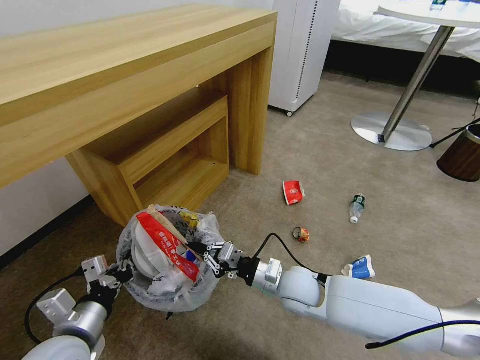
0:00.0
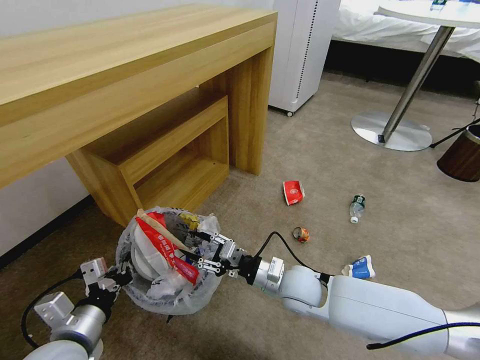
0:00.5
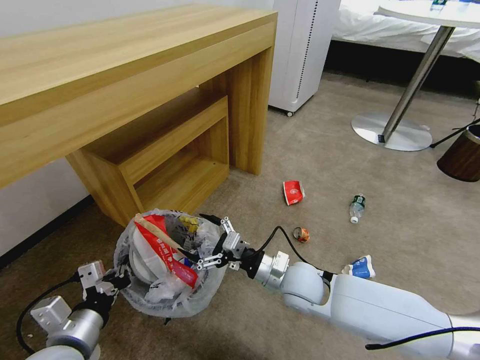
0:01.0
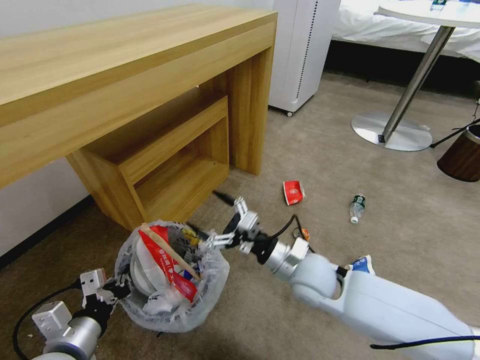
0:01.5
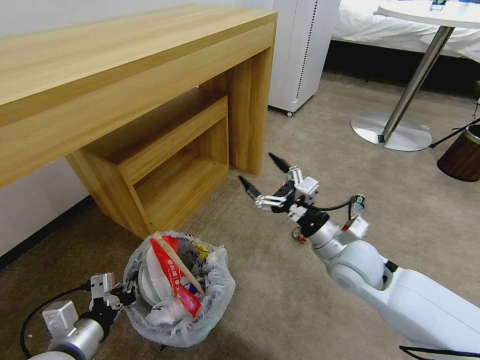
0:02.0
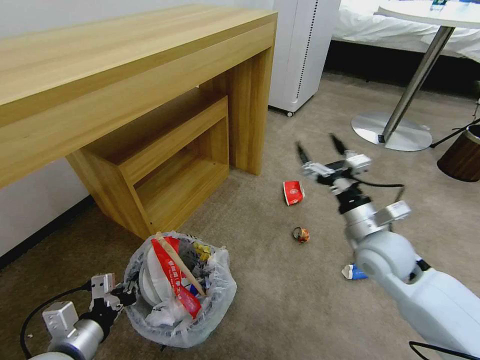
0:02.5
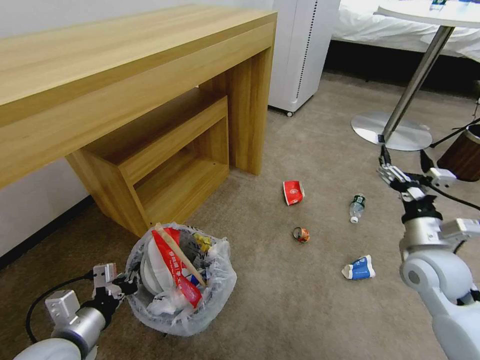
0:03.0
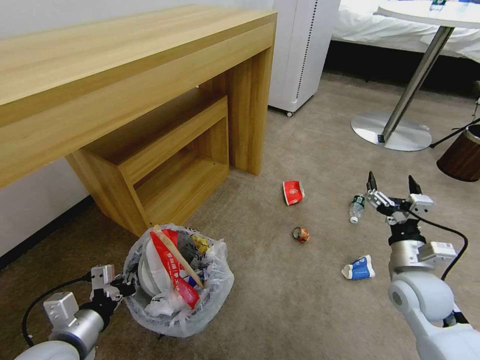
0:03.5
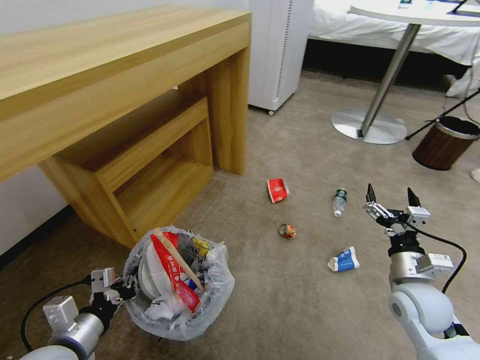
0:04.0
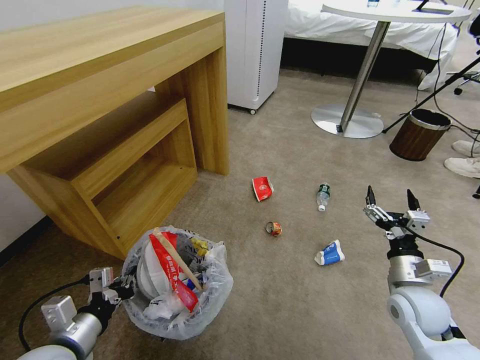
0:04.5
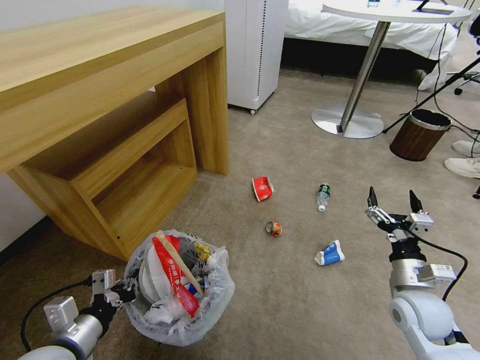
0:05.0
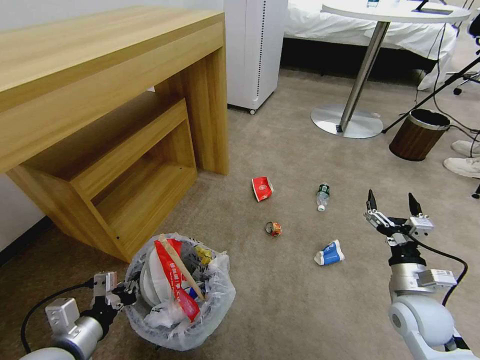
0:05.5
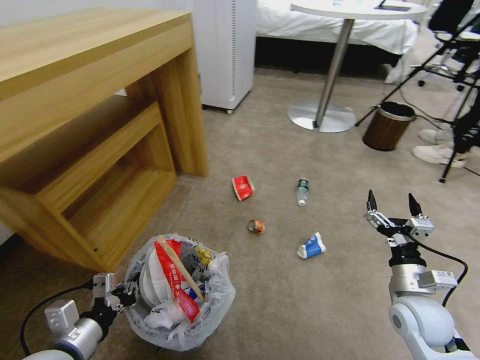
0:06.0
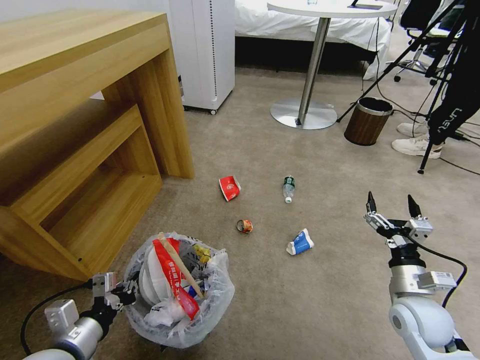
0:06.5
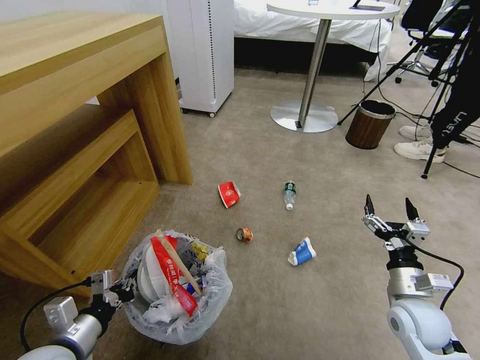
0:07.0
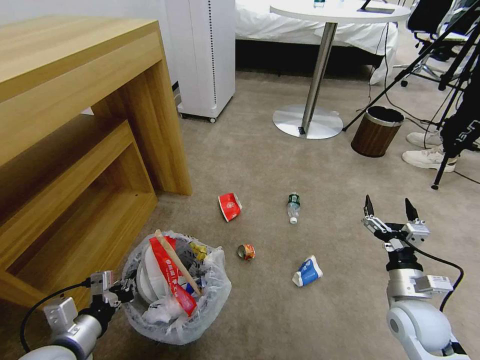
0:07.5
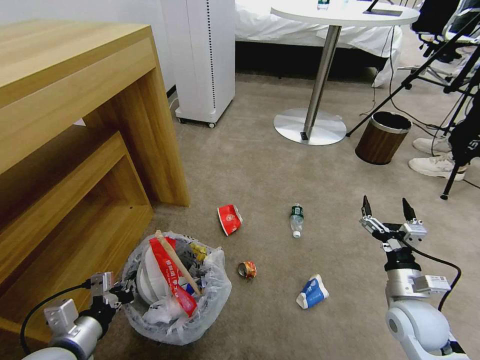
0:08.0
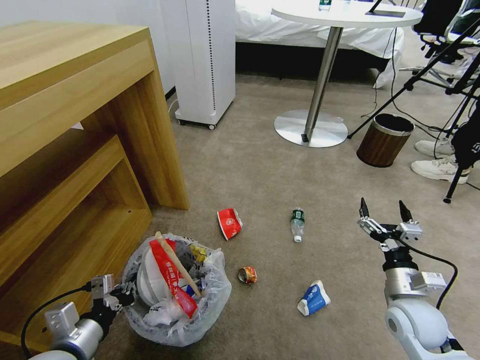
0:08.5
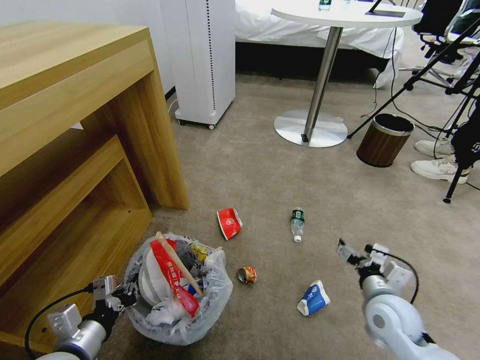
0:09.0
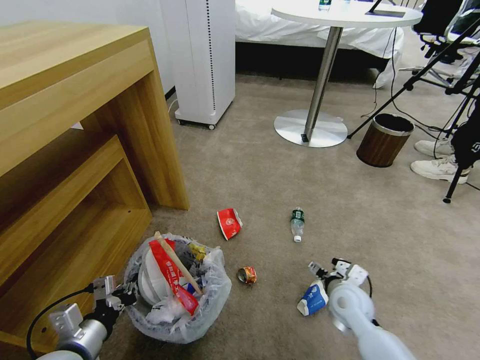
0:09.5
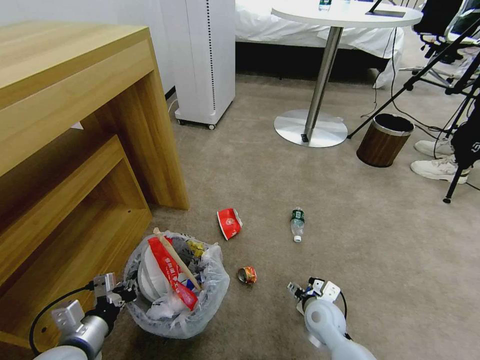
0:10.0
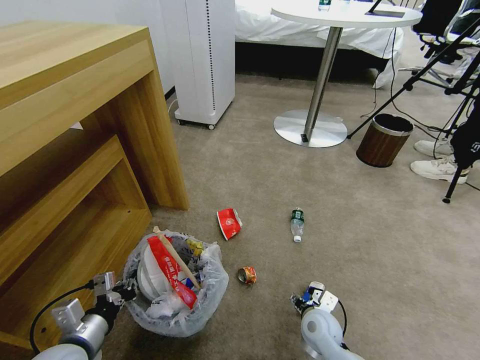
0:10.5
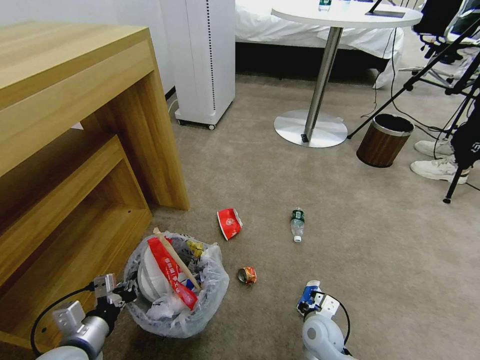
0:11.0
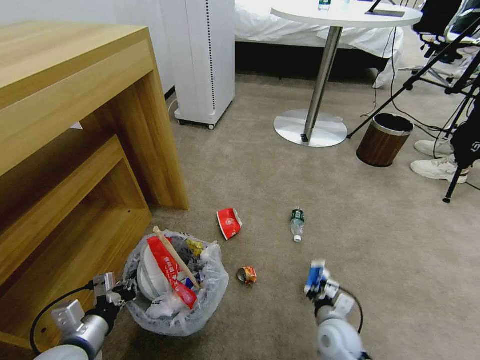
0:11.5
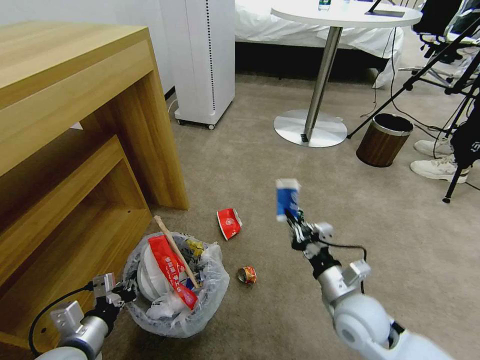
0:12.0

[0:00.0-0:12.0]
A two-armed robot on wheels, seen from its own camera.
Task of the whole recording: Pick up the trash bin and place the garbage on the floor into it.
0:00.0 to 0:02.0: The right gripper heads upward and to the right, covering about 15 cm, and opens up.
0:02.0 to 0:04.0: The right gripper moves to the right, downward and backward, some 15 cm.
0:08.0 to 0:10.0: The right gripper is displaced to the left and downward by some 20 cm.
0:10.0 to 0:12.0: The right gripper travels upward by about 10 cm, and closes its fingers.

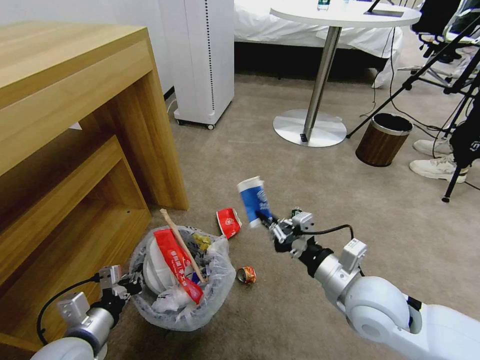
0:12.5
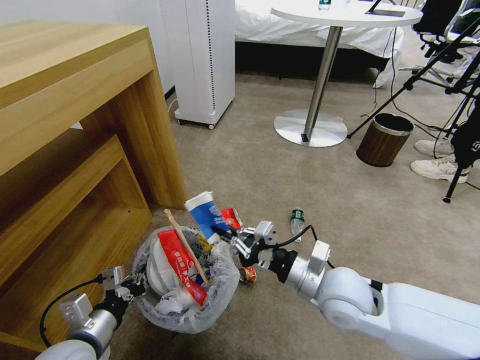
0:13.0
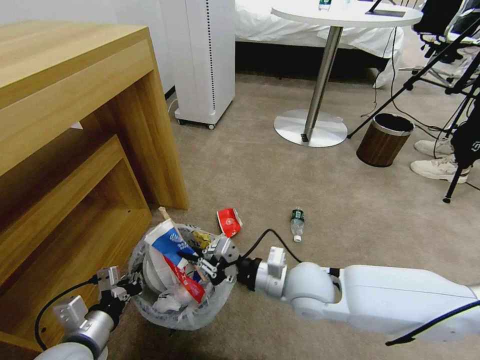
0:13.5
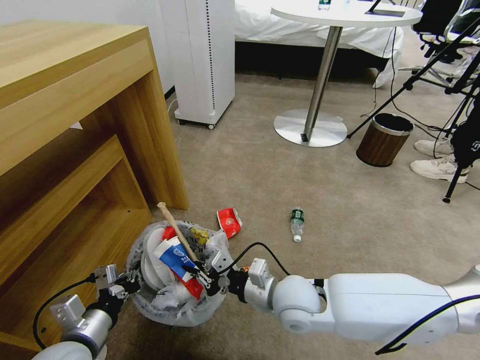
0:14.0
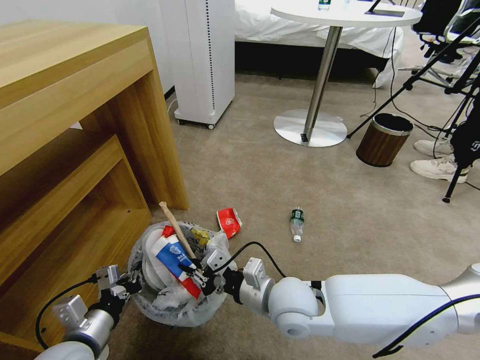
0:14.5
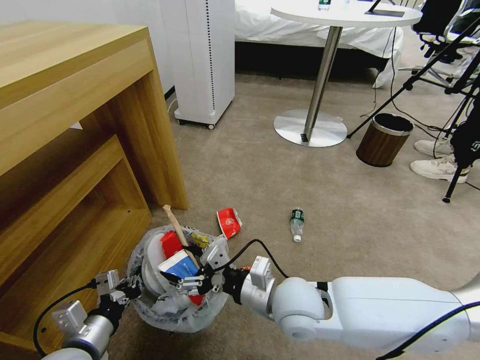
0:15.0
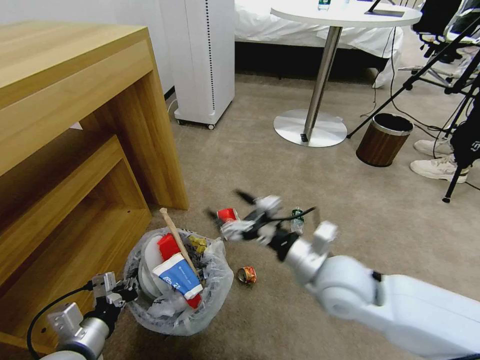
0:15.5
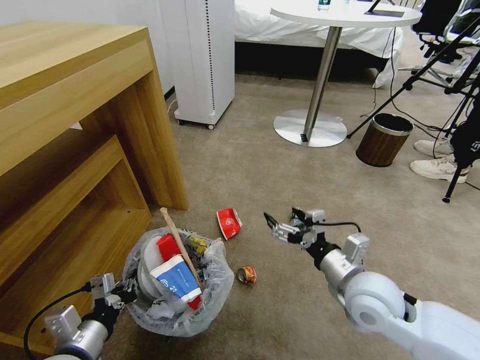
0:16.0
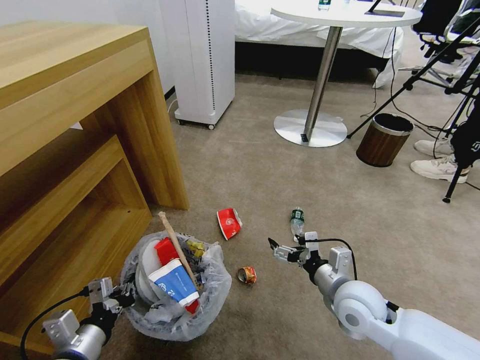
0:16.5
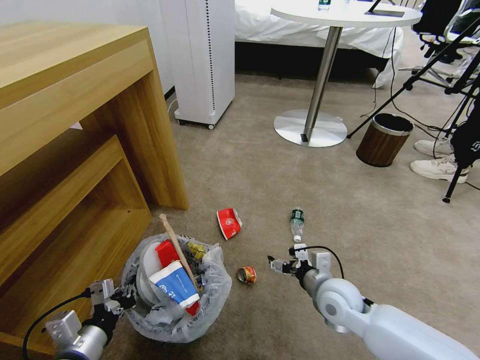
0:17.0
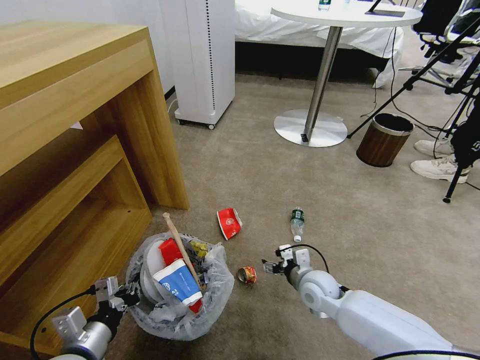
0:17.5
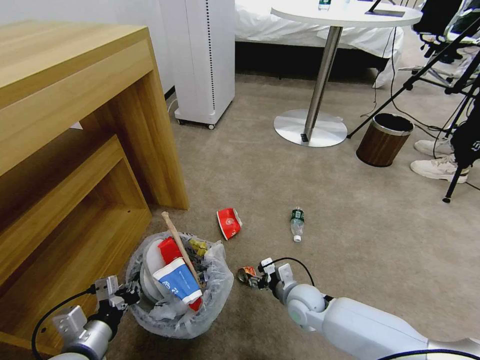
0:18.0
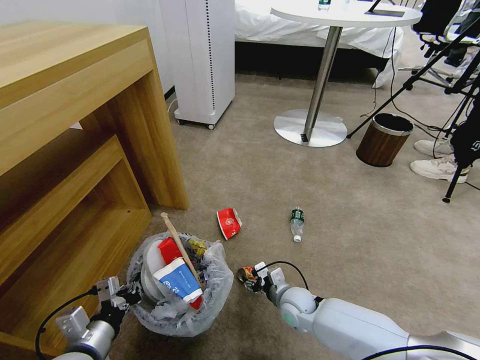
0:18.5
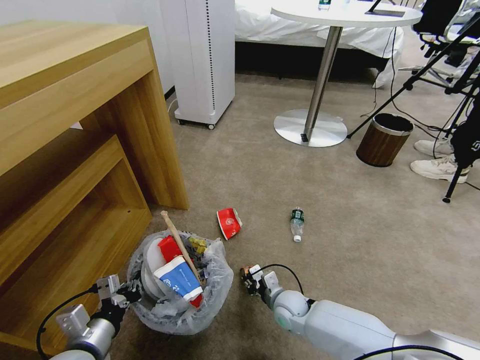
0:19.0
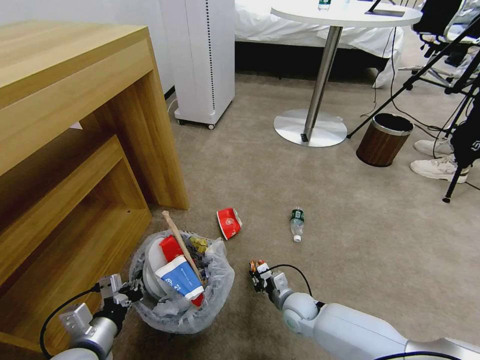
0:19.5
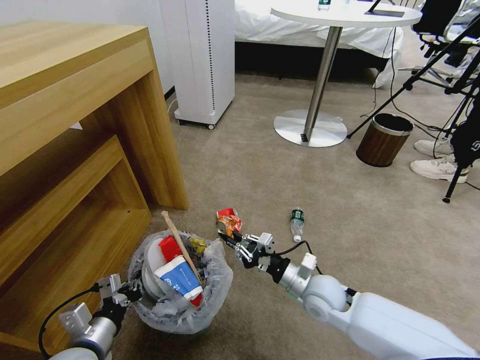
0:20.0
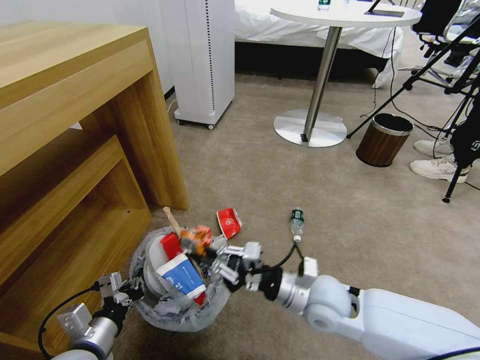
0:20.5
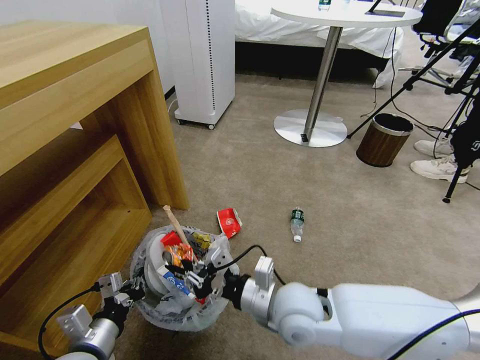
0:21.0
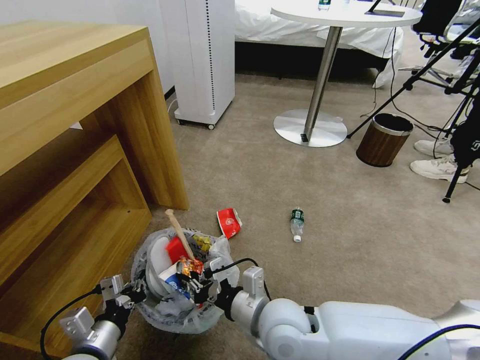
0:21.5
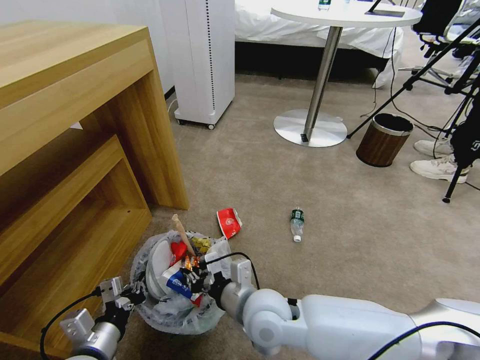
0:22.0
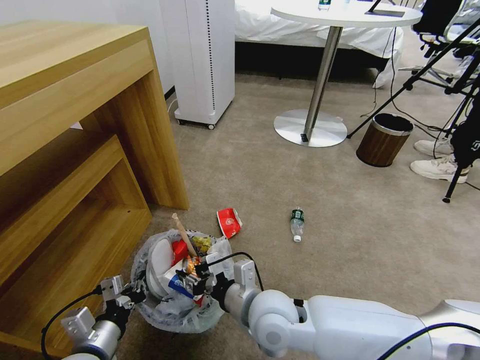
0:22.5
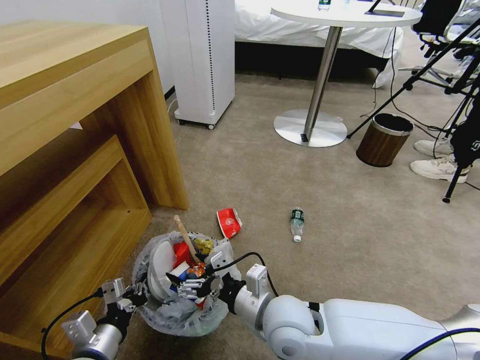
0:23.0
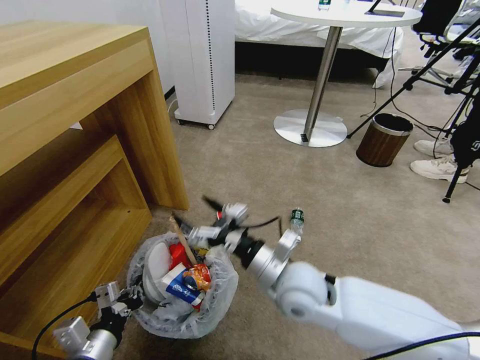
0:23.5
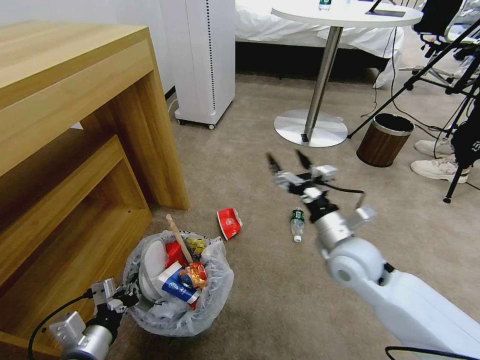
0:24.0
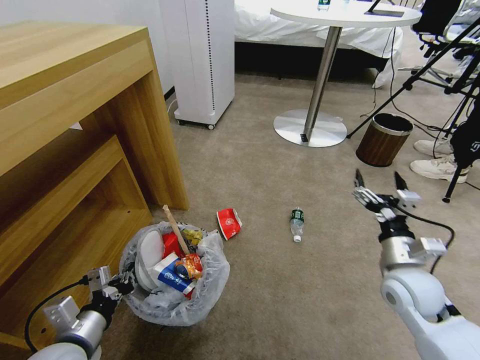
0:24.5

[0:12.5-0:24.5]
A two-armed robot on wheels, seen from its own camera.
Task of the whole recording: Pick up the trash bin and place the garbage on the floor into it.
0:12.5 to 0:14.5: The right gripper is displaced to the left and downward by roughly 15 cm.
0:14.5 to 0:16.5: The right gripper shifts approximately 15 cm to the right, and opens its fingers.
0:16.5 to 0:18.5: The right gripper moves downward and to the left, some 20 cm.
0:18.5 to 0:20.5: The right gripper travels upward by about 20 cm, and closes up.
0:20.5 to 0:22.5: The right gripper heads to the left, covering roughly 10 cm.
0:22.5 to 0:24.5: The right gripper shifts about 30 cm to the right, and opens up.

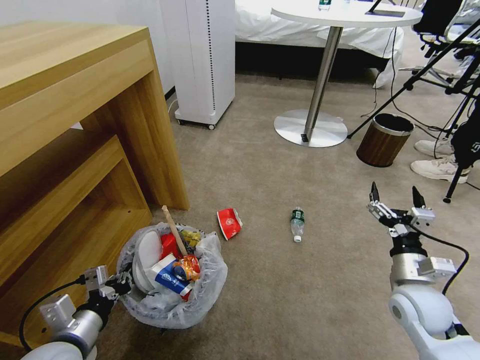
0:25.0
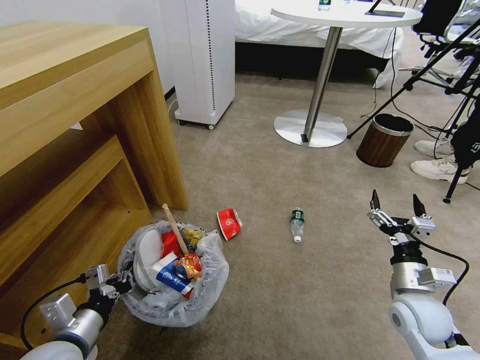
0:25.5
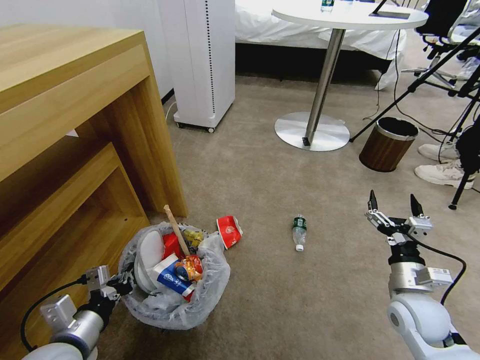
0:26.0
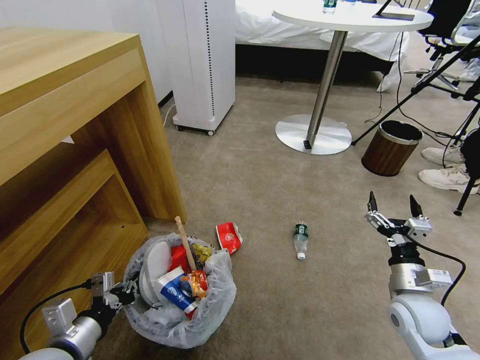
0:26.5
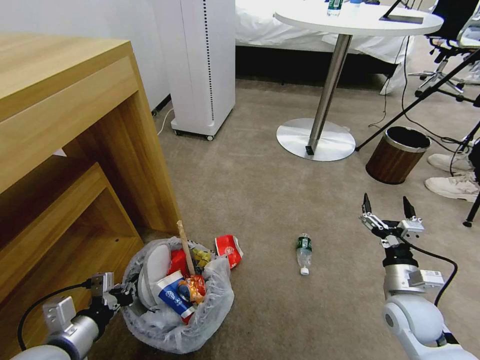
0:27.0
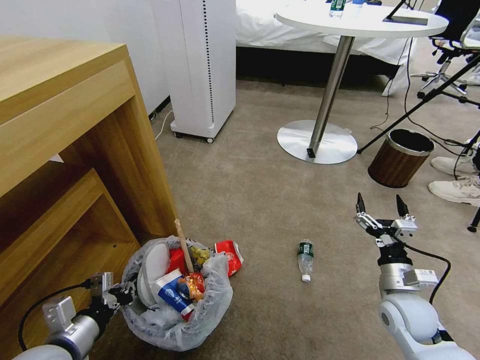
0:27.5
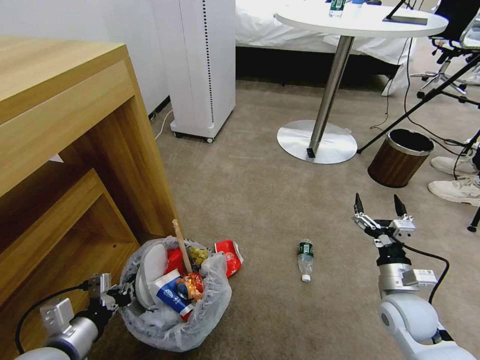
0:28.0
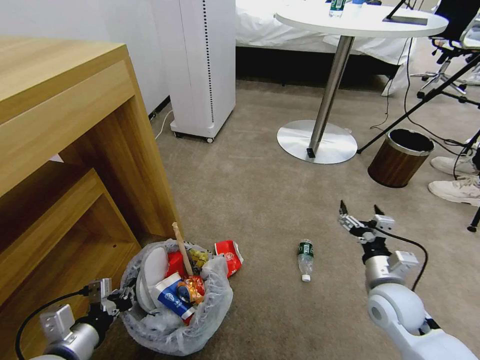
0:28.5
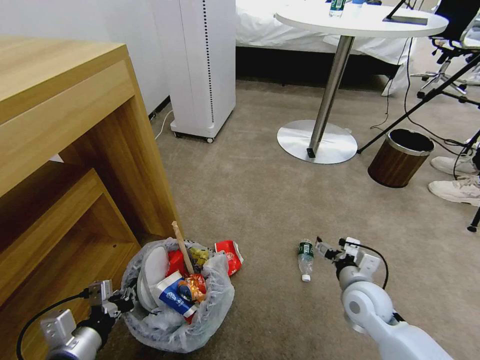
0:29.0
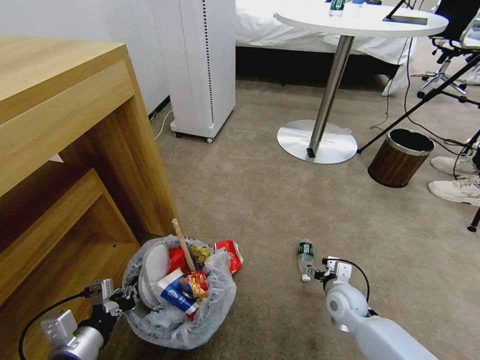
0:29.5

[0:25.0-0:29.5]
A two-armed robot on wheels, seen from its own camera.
Task of the whole recording: Pick up the trash bin and place the garbage on the floor into it.
0:27.0 to 0:29.5: The right gripper moves downward, to the left and forward, about 15 cm.
